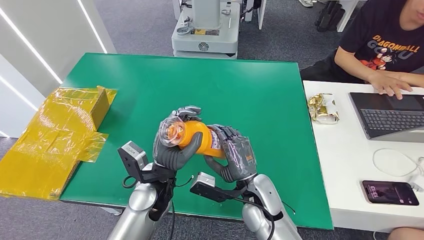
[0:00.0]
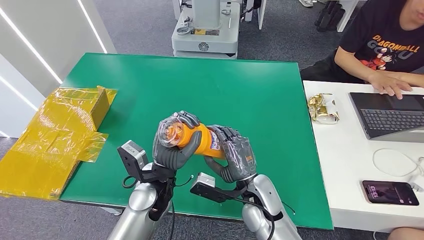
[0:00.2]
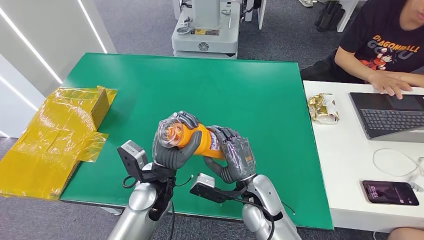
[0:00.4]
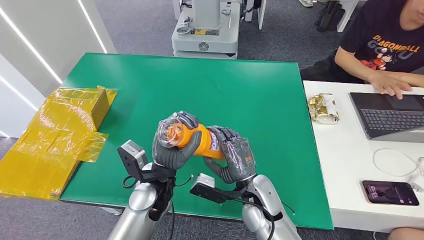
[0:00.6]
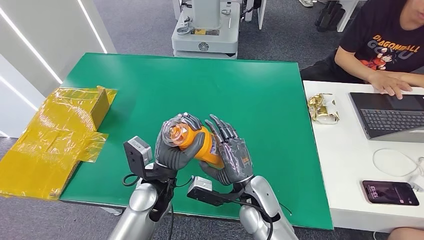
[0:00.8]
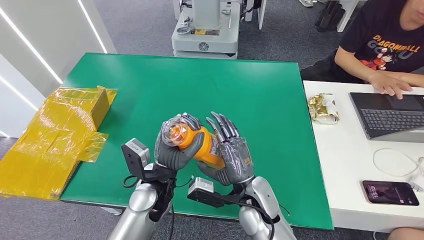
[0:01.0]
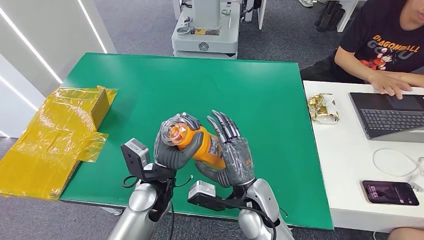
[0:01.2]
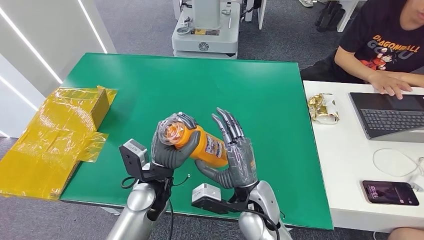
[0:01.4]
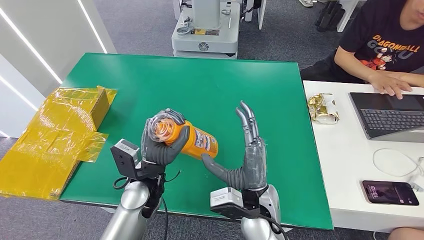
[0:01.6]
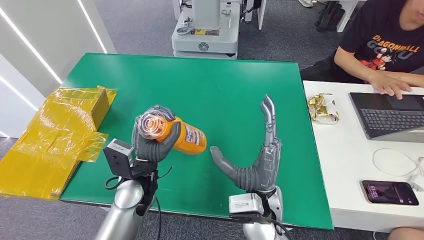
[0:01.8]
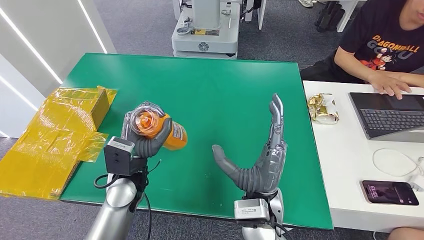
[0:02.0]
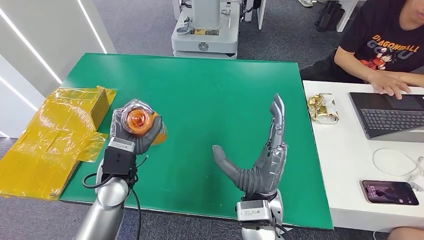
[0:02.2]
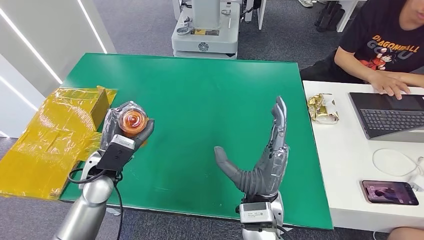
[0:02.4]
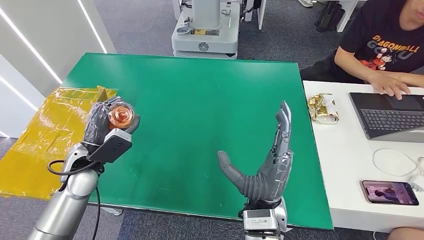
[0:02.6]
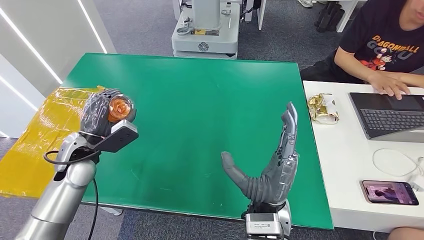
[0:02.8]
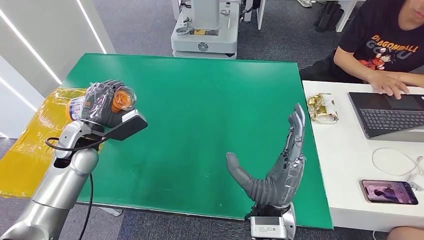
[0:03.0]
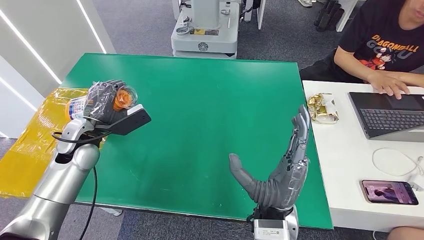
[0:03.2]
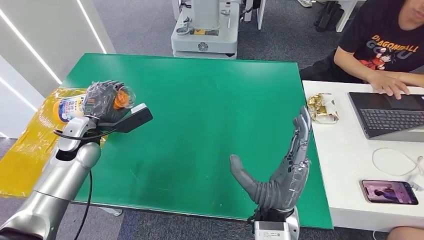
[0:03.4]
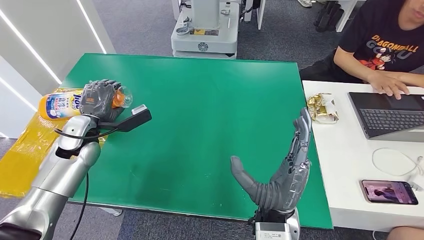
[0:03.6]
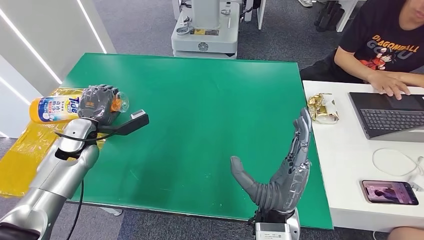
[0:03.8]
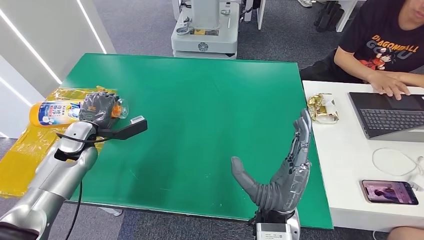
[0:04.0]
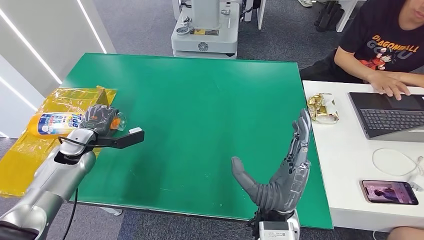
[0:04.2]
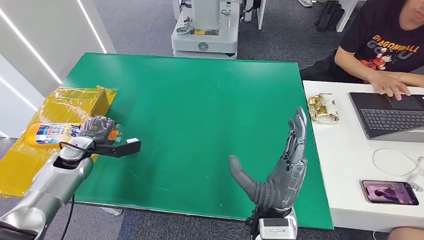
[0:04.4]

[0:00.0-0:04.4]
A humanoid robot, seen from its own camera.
Step, 0:00.0 to 0:04.4: Turn the bottle to the front side.
0:00.0 to 0:01.4: The hands make only small movements.
0:03.0 to 0:04.4: The left hand heads downward and to the left, covering roughly 15 cm.

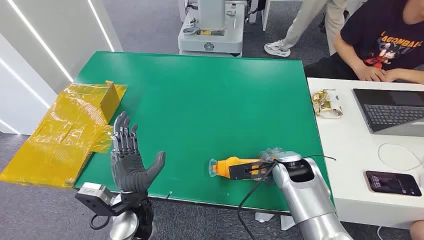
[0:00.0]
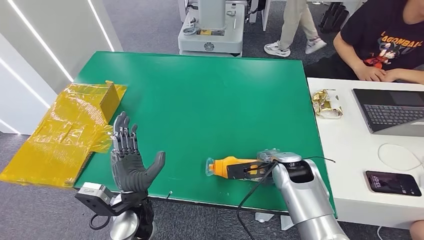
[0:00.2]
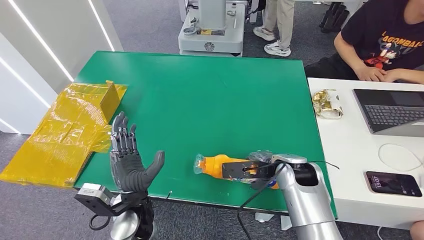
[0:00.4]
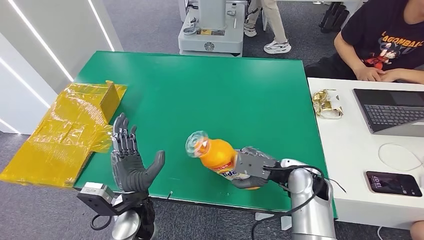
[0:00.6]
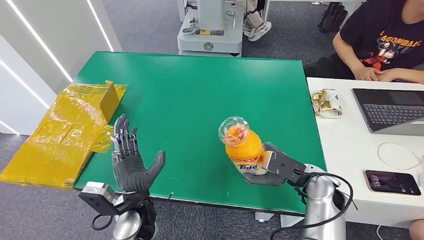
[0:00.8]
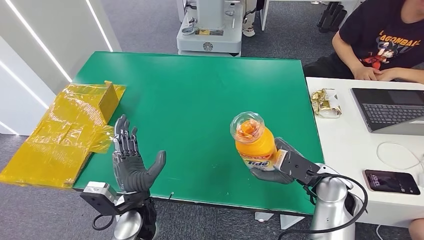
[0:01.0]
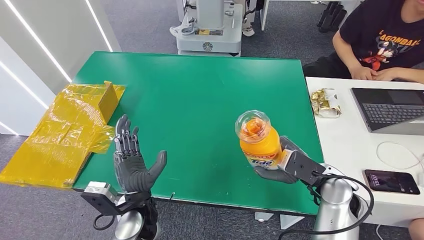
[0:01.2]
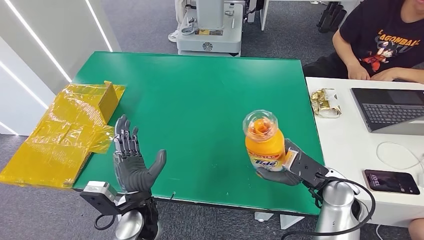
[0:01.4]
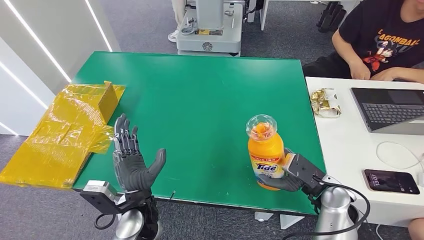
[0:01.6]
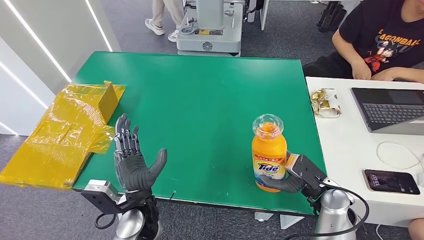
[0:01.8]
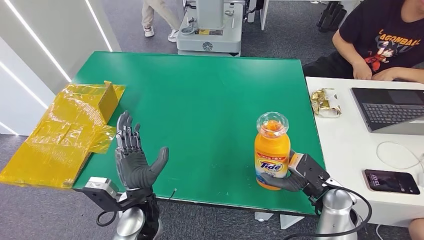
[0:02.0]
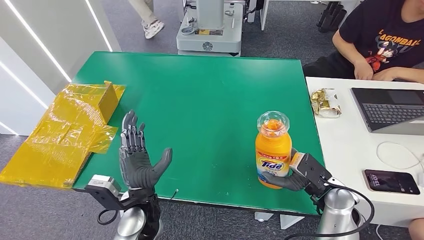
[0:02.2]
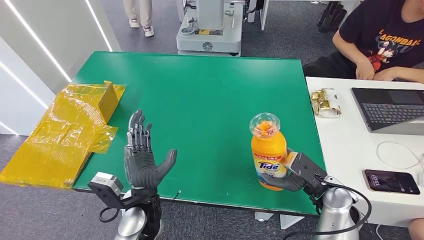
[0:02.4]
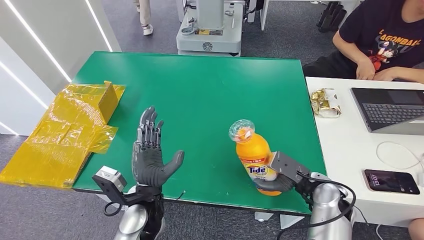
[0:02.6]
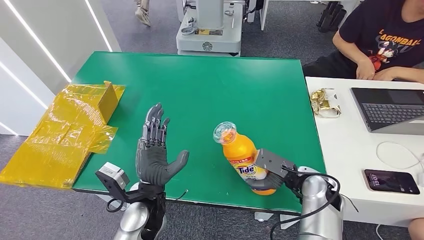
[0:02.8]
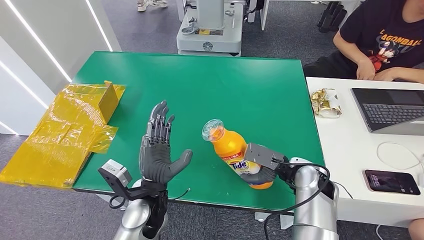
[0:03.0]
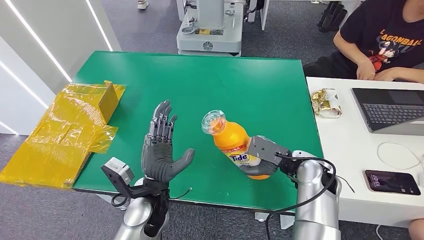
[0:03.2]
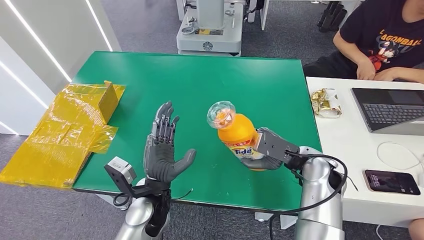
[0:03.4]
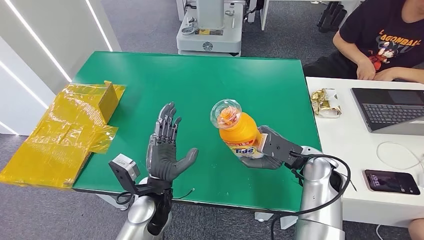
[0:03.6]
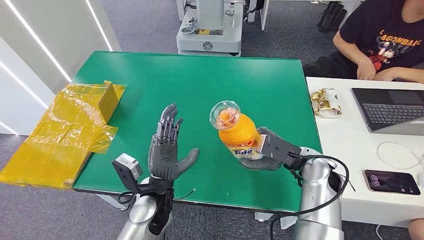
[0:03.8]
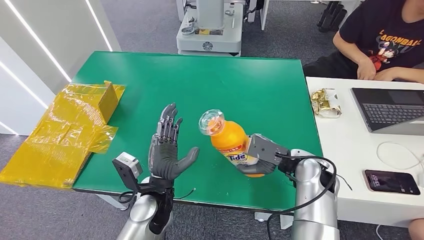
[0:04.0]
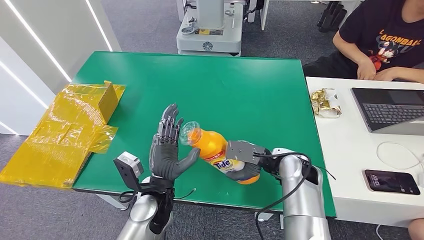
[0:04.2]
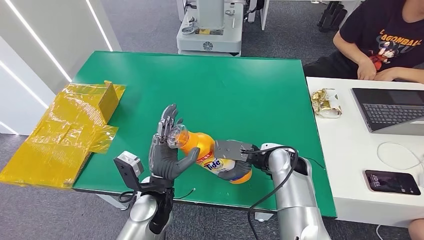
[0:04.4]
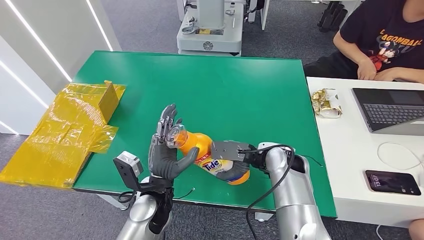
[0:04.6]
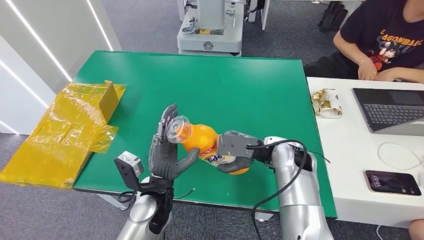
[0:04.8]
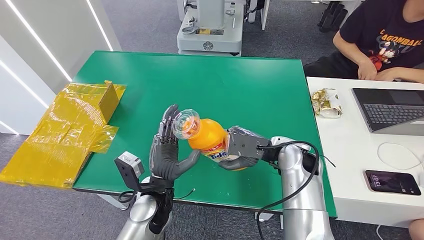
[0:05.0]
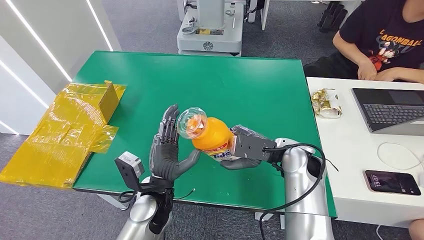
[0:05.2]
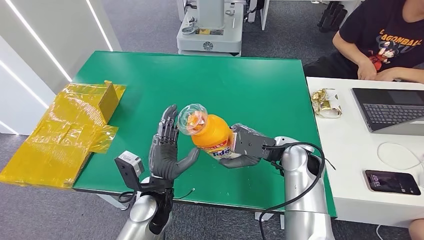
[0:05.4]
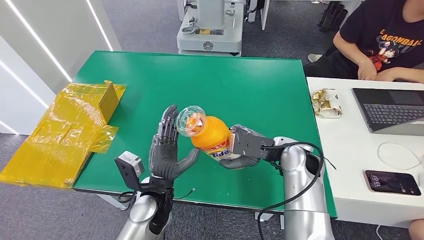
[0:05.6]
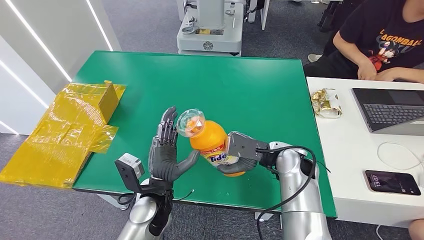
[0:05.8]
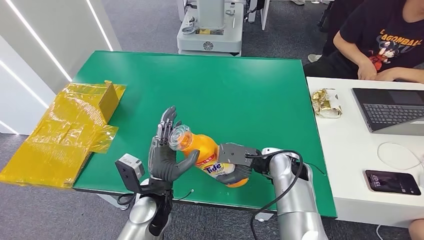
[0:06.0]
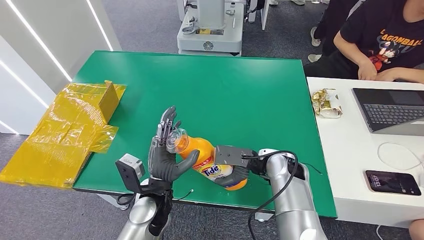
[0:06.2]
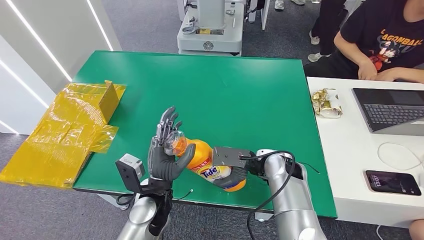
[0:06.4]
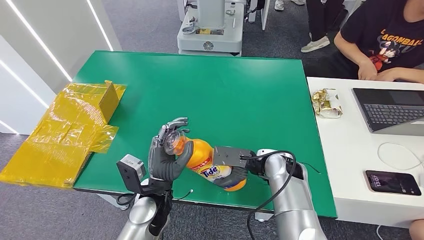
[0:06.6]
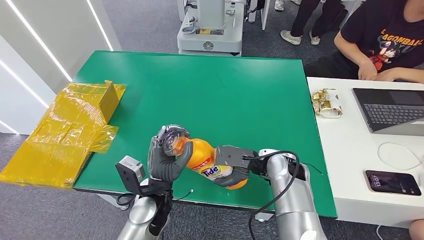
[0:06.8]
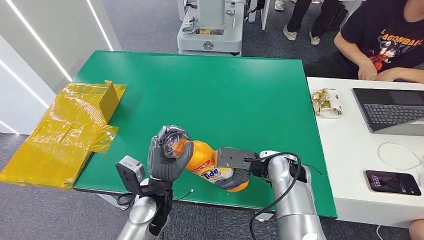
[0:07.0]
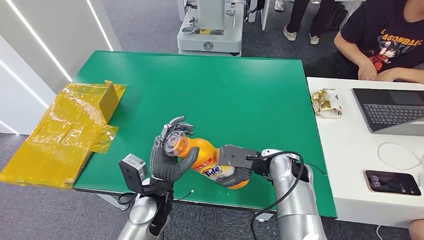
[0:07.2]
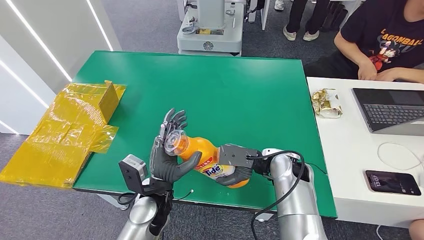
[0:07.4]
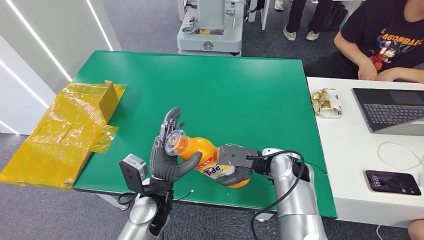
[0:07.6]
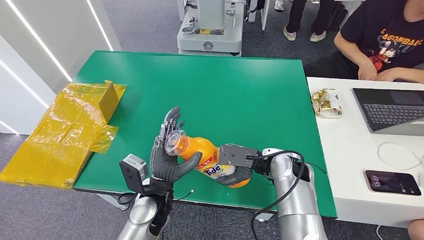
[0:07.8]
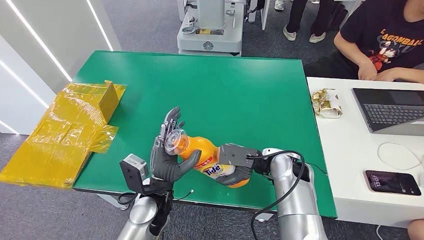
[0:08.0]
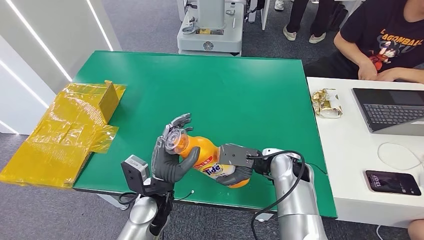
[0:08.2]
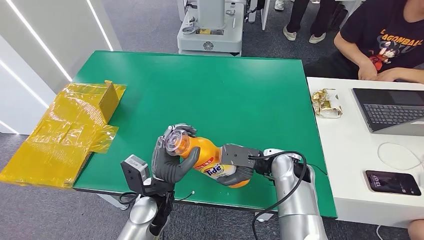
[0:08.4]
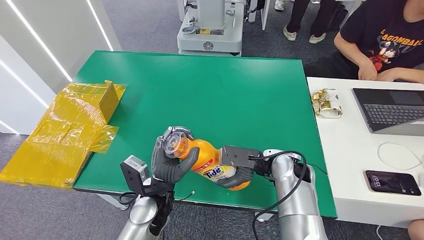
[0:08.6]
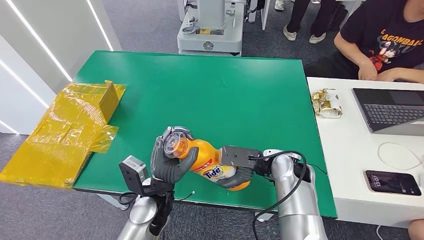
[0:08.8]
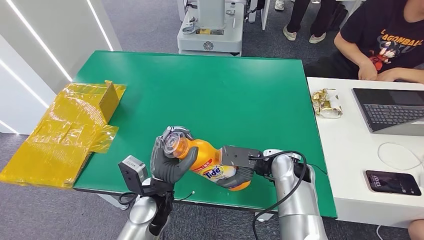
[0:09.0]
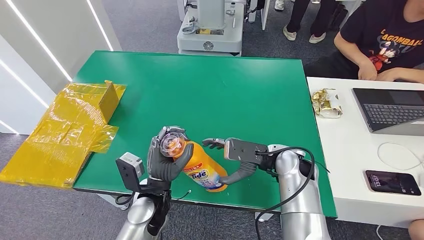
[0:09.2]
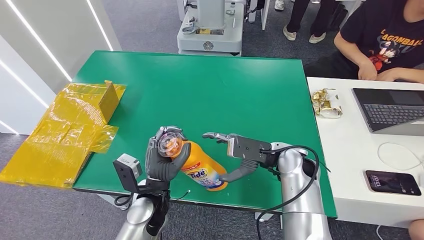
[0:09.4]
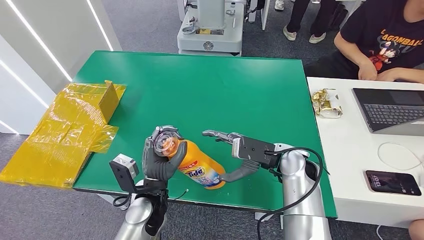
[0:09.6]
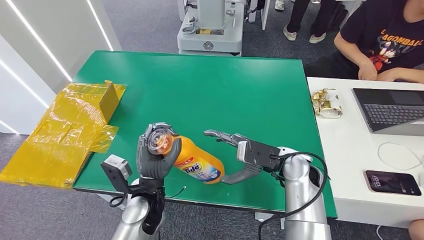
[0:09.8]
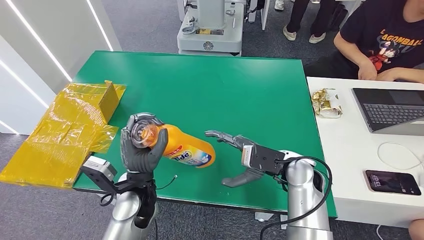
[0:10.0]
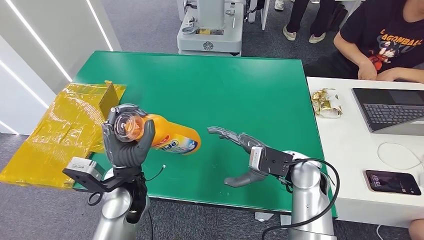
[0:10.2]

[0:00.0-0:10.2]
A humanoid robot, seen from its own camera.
Step, 0:00.0 to 0:02.4: Pick up the bottle from the table.
0:01.4 to 0:03.0: The right hand changes place by roughly 5 cm.
0:03.0 to 0:04.4: The right hand is displaced to the left by approximately 5 cm.
0:05.8 to 0:07.2: There are only small adjustments of the hands.
0:07.2 to 0:08.8: Both hands stay put.
0:08.8 to 0:10.2: The left hand travels upward by some 5 cm.

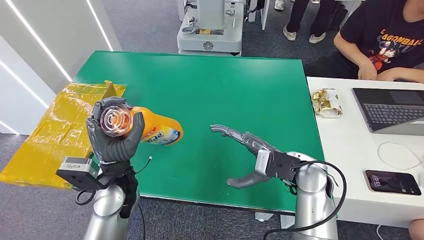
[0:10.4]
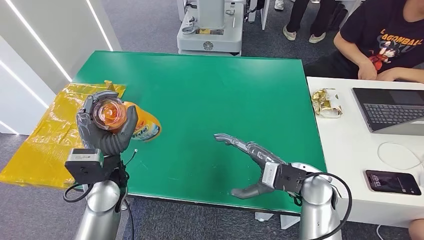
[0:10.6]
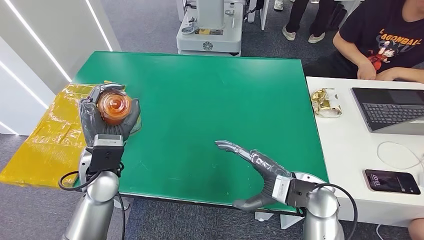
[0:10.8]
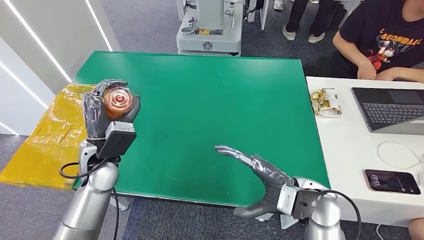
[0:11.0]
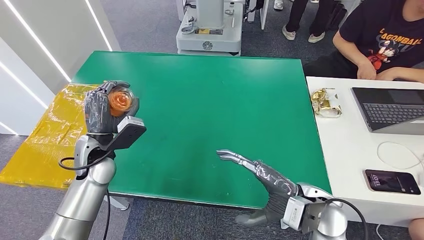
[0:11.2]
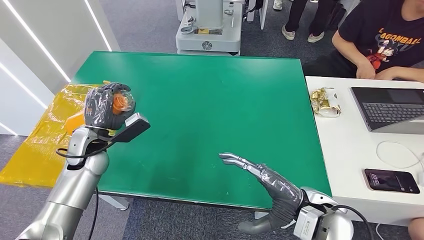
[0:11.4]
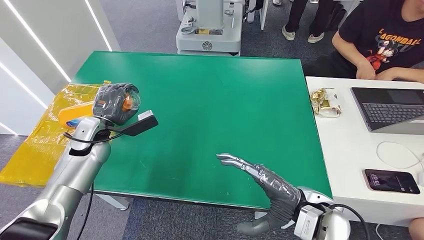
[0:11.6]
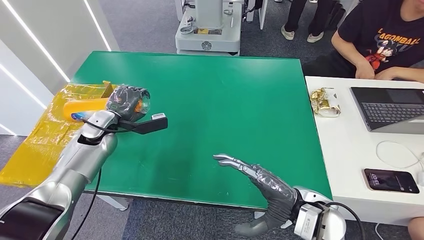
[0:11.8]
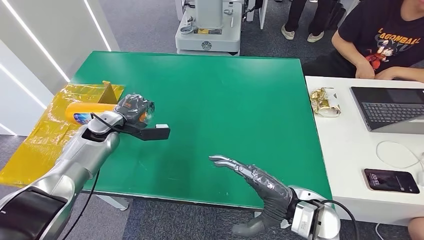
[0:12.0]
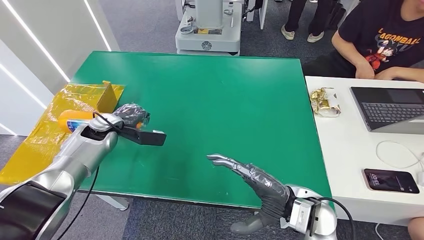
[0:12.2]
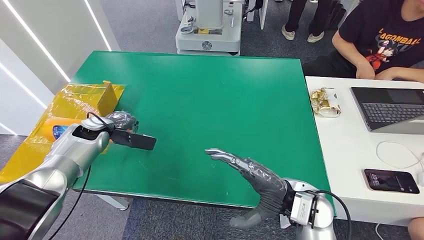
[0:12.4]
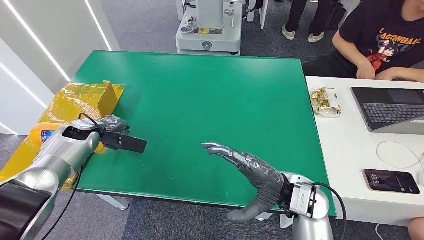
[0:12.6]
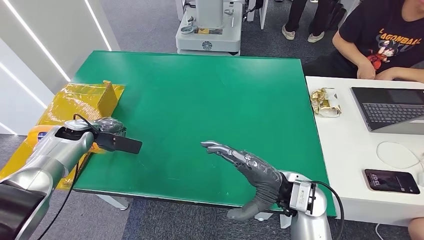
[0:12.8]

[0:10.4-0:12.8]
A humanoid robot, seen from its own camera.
Step, 0:10.4 to 0:12.8: Turn the bottle to the front side.
0:11.6 to 0:12.8: The left hand moves to the left, some 10 cm.
